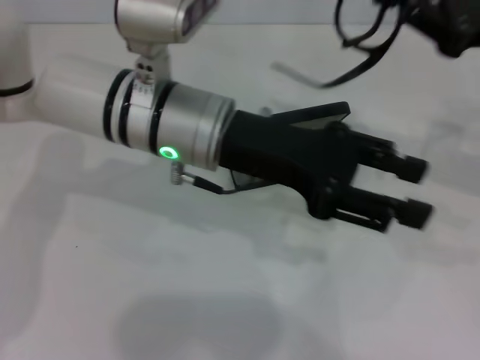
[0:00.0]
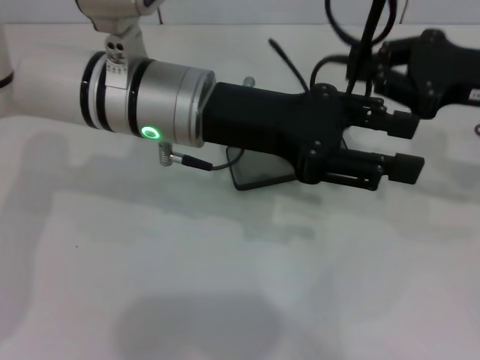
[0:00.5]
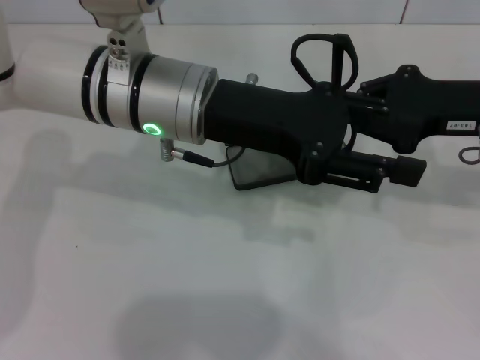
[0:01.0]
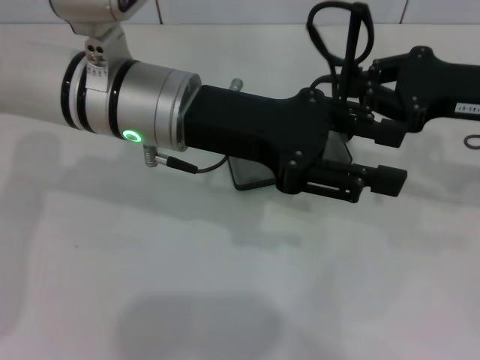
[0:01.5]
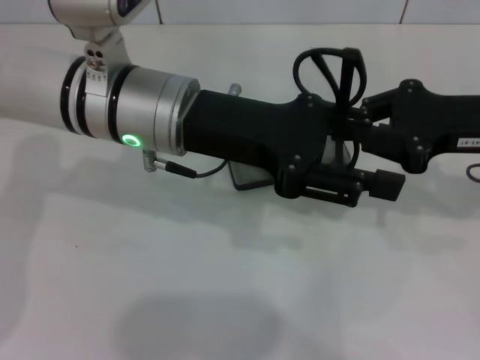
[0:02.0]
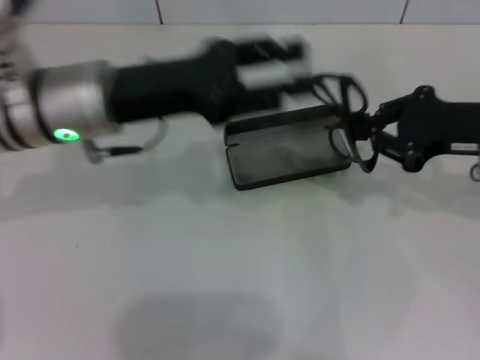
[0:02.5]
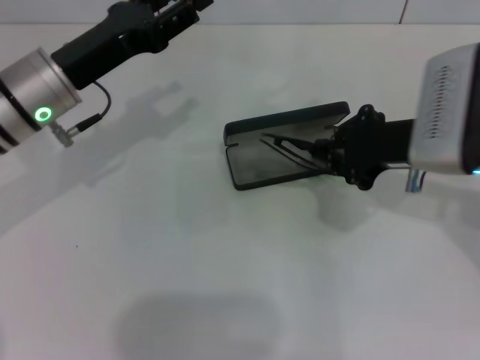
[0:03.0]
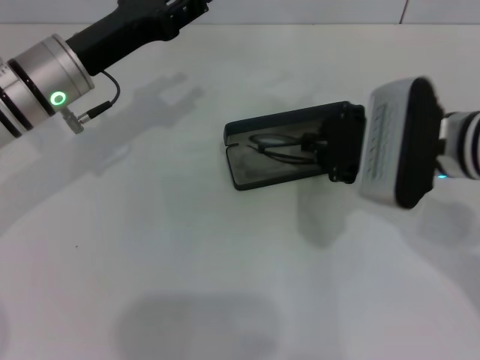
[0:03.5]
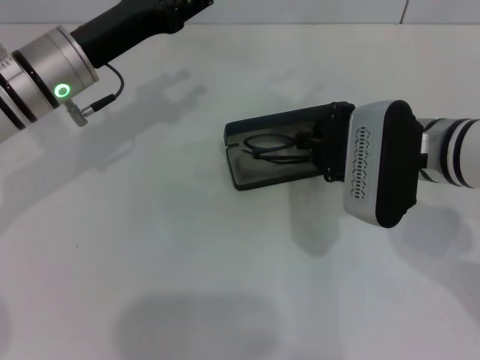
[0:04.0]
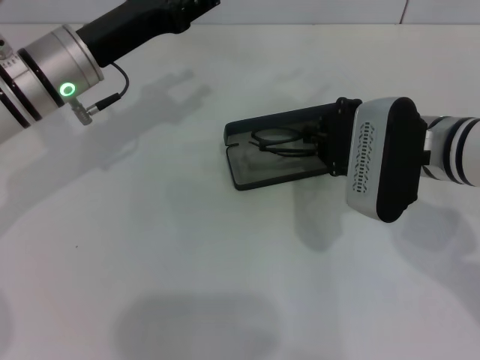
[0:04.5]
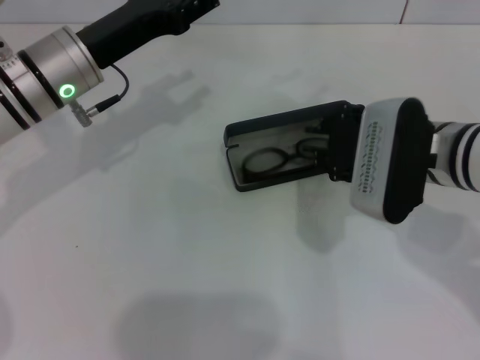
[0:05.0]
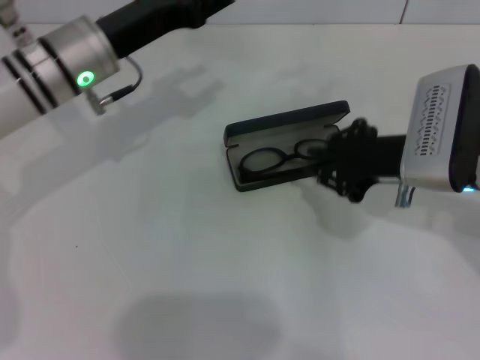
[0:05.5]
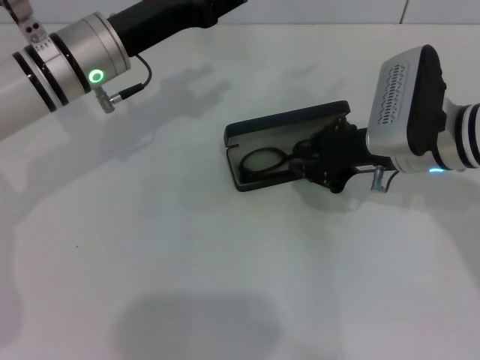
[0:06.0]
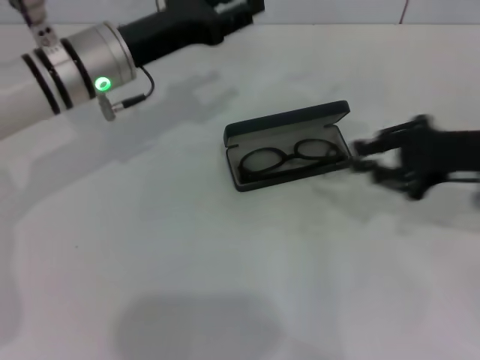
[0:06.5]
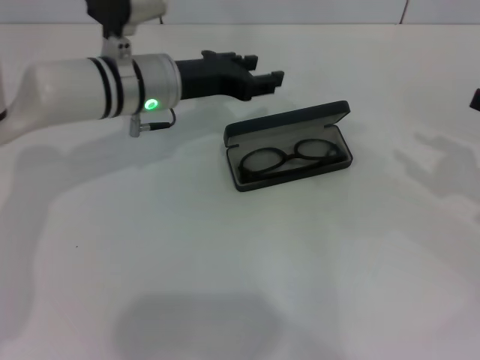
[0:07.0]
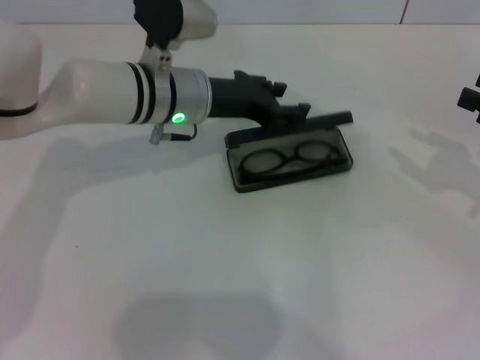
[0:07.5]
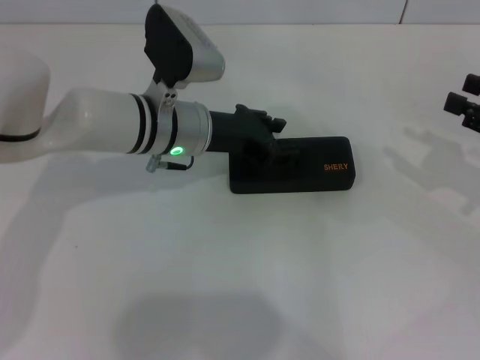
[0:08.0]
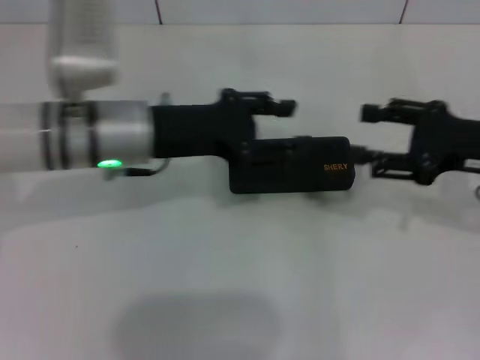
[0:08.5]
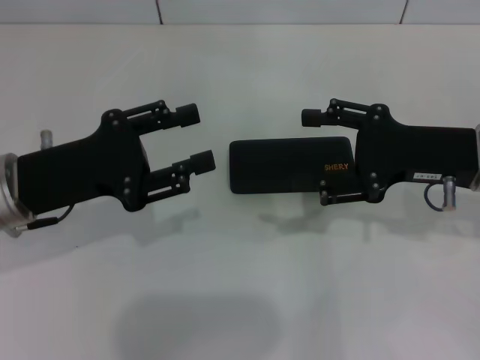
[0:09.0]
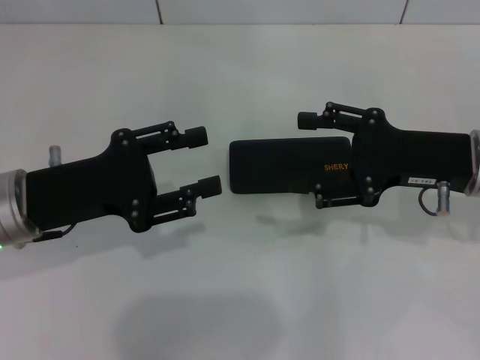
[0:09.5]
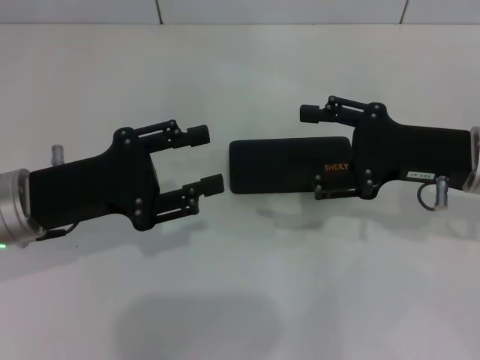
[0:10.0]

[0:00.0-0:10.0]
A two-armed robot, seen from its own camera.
Step, 0:00.0 to 0:02.0: Lift the glasses with your right hand.
Step, 0:02.5 to 0:05.0: Put the glasses into the case with your right hand.
Step, 0:05.5 to 0:08.0: Close the glasses case with your left hand.
0:02.0 to 0:04.0: The two grippers go roughly 10 cm to the left.
0:06.0 to 0:08.0: The left gripper travels to the right and downward by about 10 cm, while the right gripper shifts about 20 cm to the right, and opens.
0:08.0 to 0:10.0: The left gripper moves to the left and backward, some 20 cm; the right gripper goes roughly 15 cm to the left, and opens up.
